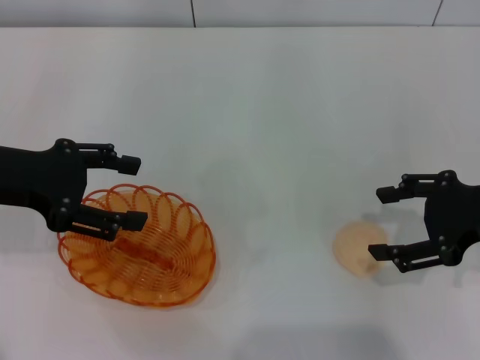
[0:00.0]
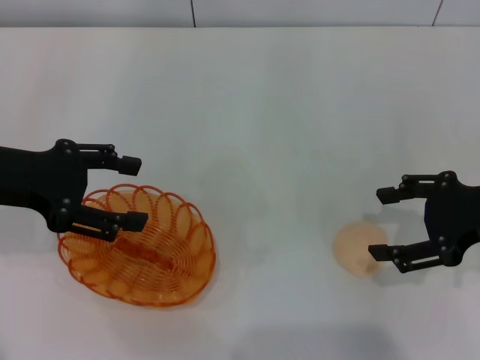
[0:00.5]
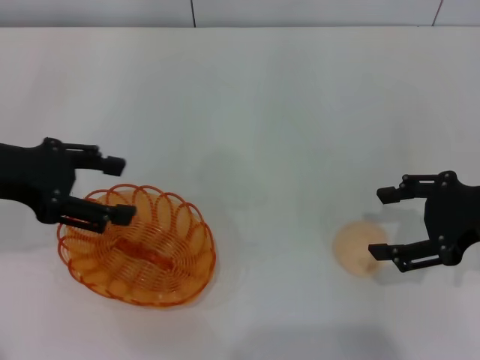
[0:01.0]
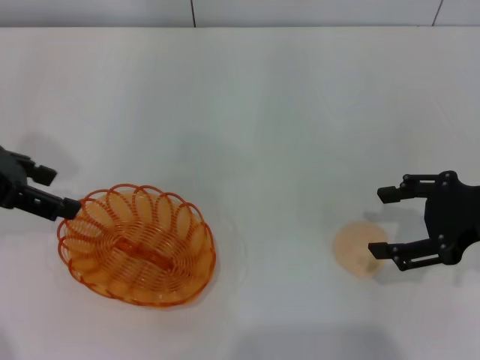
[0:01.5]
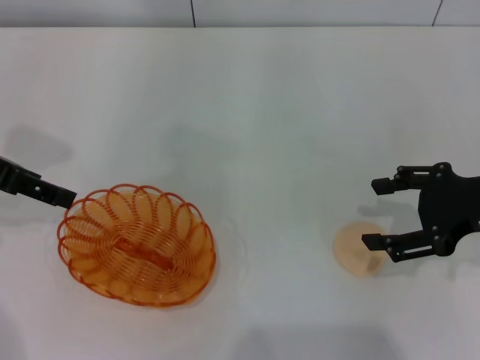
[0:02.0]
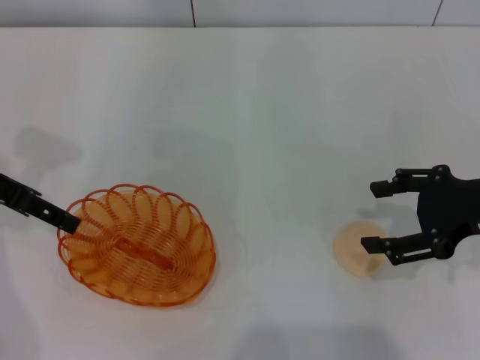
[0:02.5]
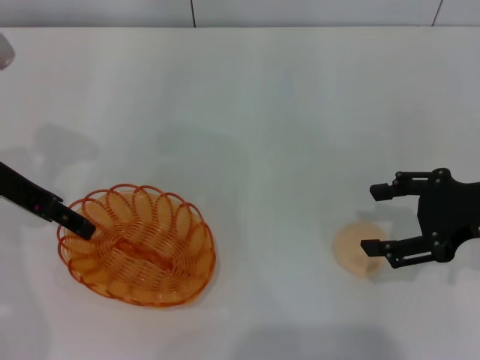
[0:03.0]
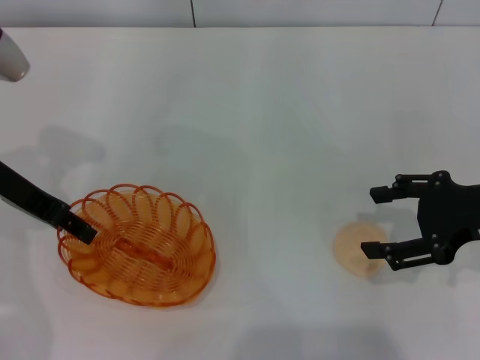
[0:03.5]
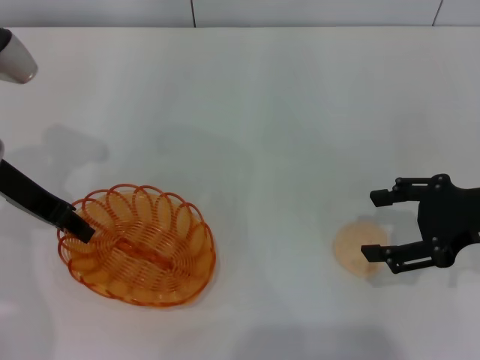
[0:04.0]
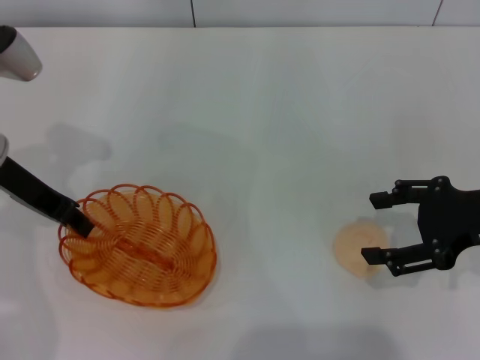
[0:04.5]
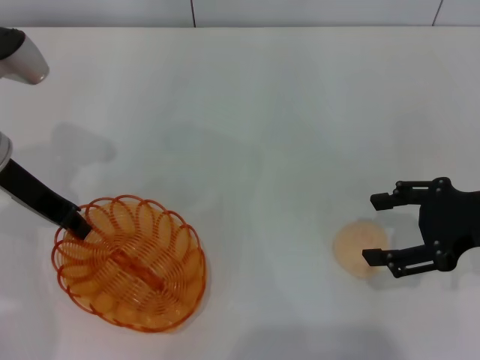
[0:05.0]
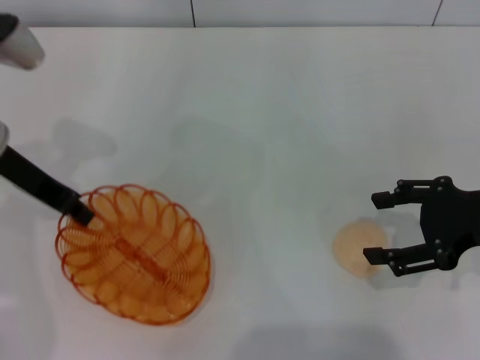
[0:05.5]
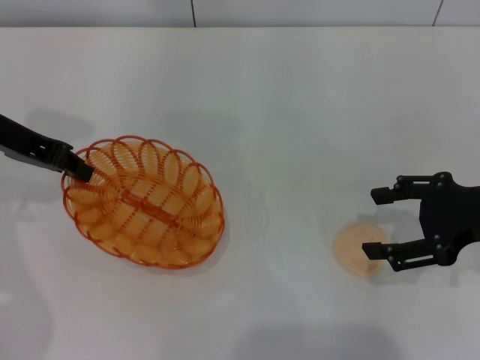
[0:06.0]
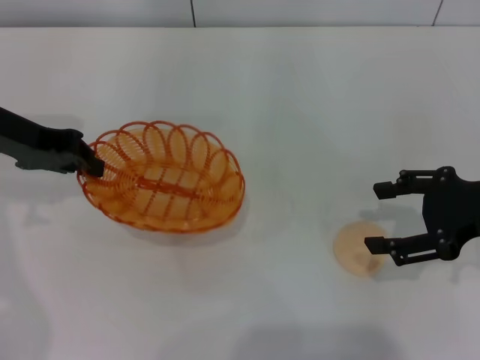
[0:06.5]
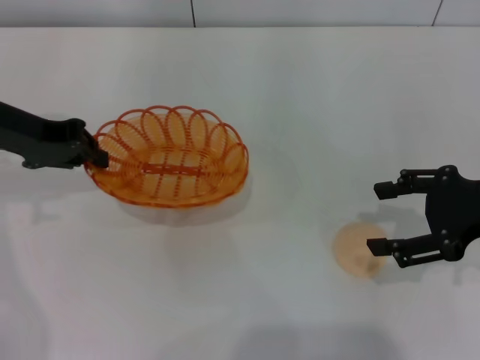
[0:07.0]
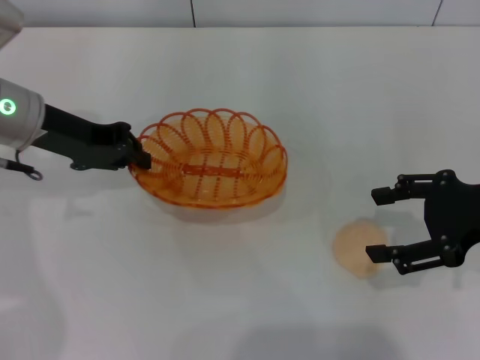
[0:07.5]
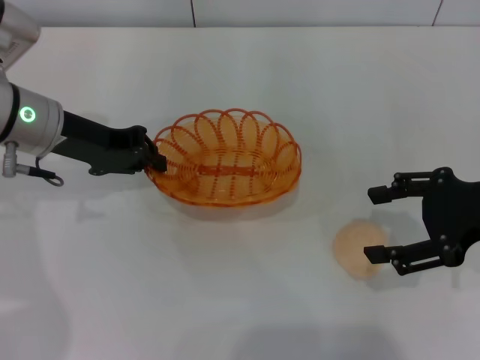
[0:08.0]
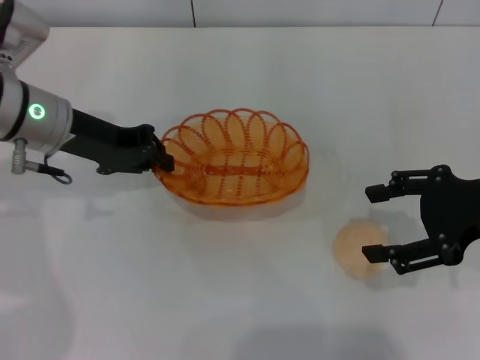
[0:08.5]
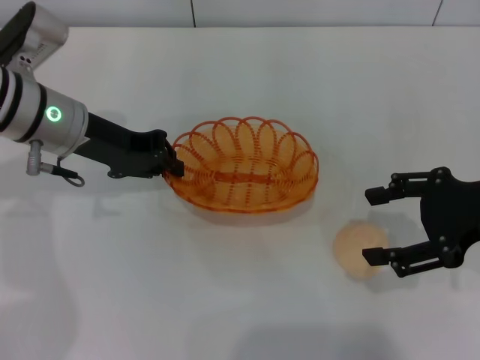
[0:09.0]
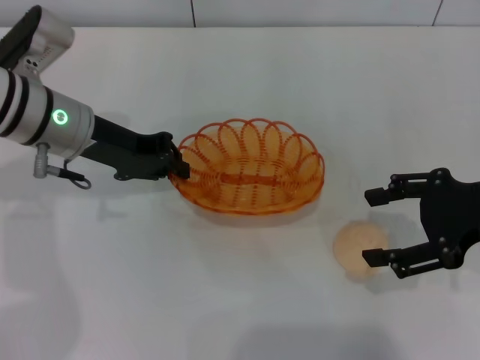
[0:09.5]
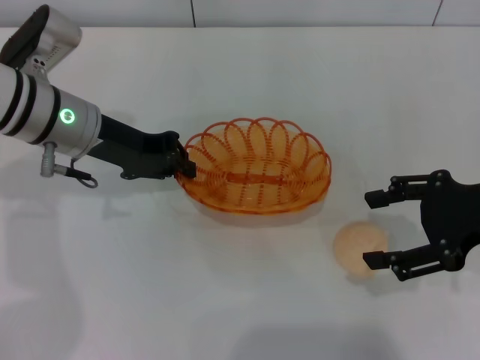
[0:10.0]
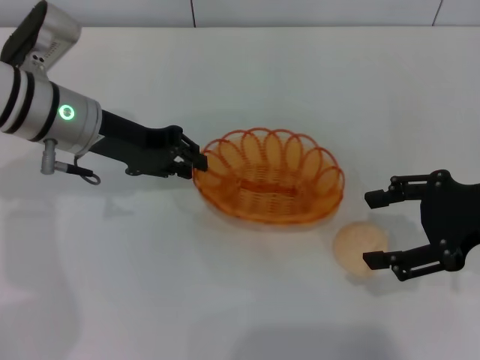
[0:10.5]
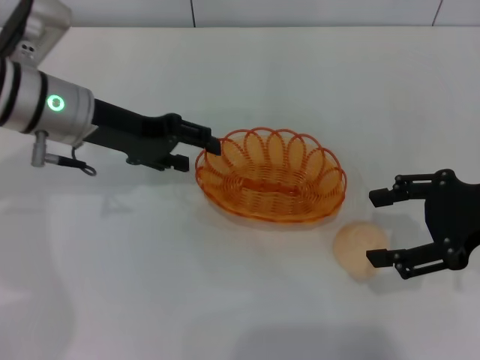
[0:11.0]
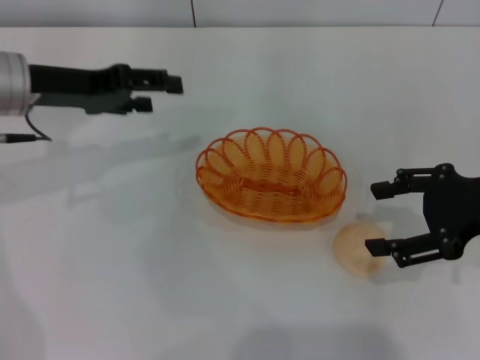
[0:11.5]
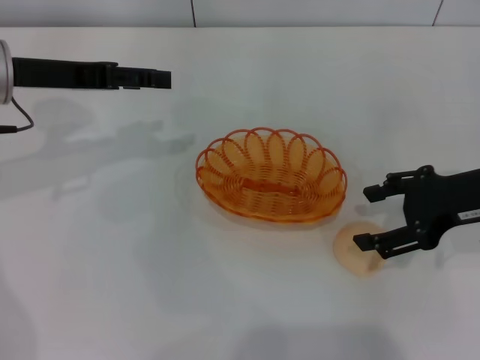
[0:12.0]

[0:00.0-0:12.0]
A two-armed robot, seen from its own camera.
Step, 0:00.0 to 0:06.5: Pick up the basket with the left gripper.
Step, 0:07.0 to 0:11.0: Place the basket in the center of view with the left gripper.
0:02.0 to 0:04.0: The left gripper heads downward, covering approximately 5 cm, and closes up.
0:04.0 to 0:06.0: The grippers stay close to where they were, moving slightly.
0:06.0 to 0:08.0: The left gripper shifts by some 5 cm.
0:08.0 to 0:10.0: The grippers move only a little.
0:10.0 to 0:12.0: The left gripper heads to the left, covering approximately 5 cm, and opens.

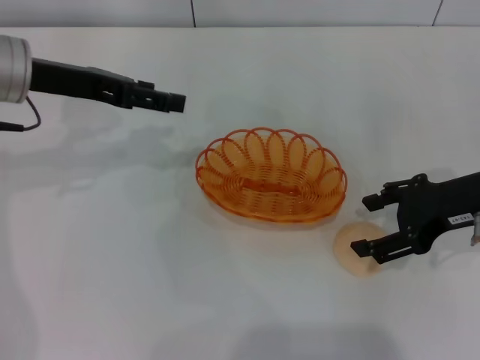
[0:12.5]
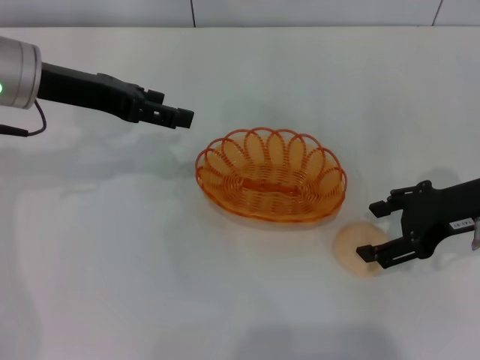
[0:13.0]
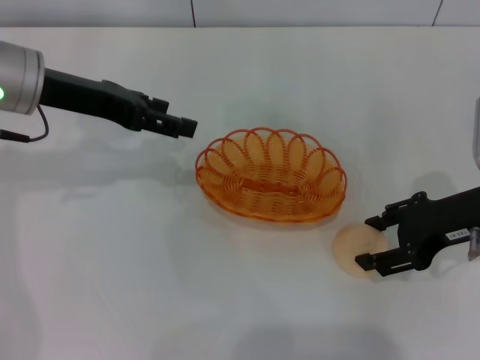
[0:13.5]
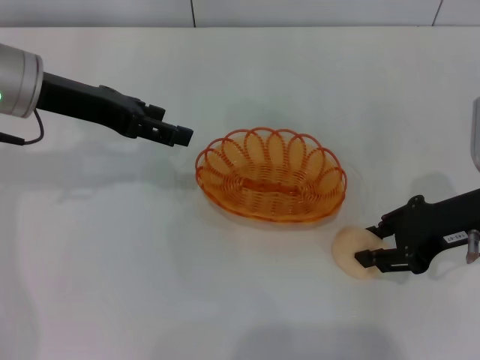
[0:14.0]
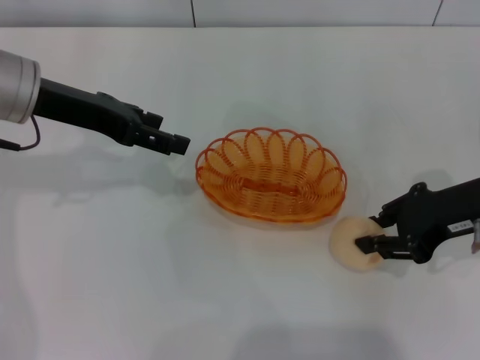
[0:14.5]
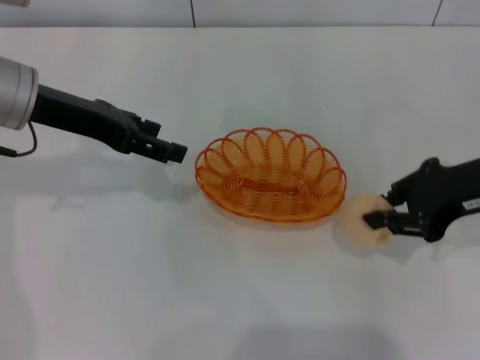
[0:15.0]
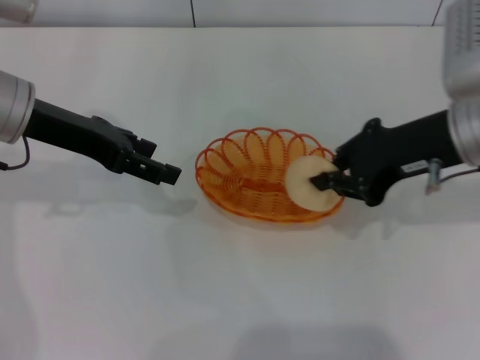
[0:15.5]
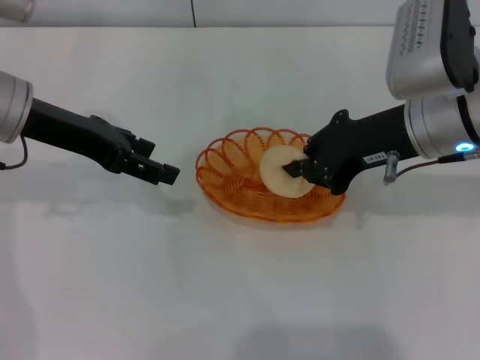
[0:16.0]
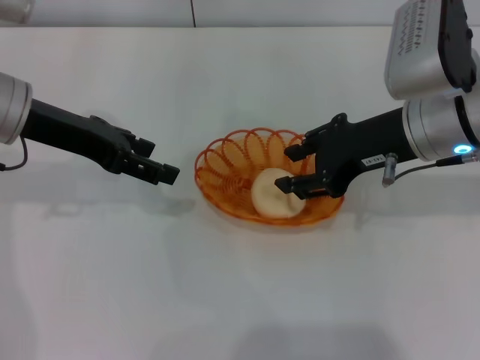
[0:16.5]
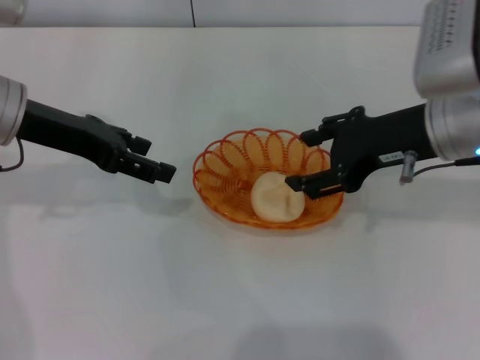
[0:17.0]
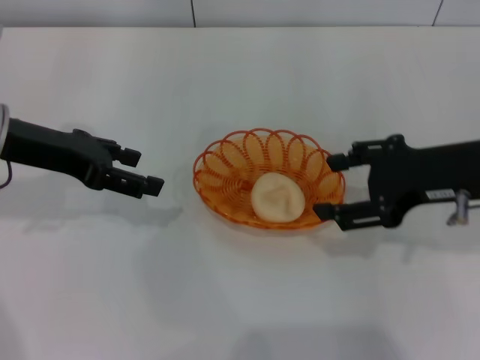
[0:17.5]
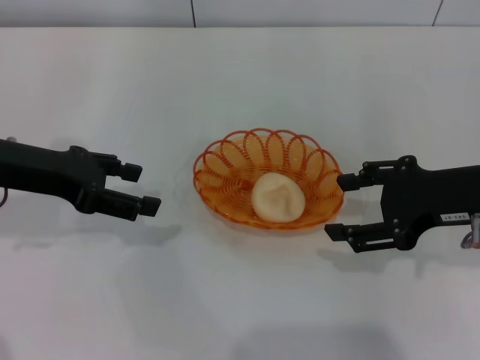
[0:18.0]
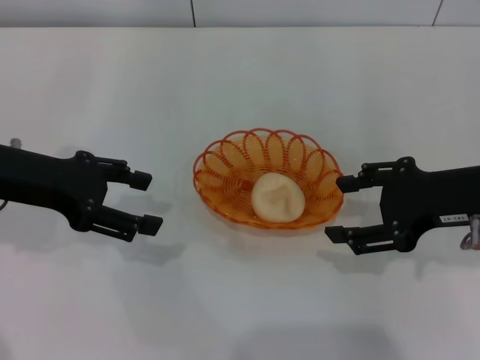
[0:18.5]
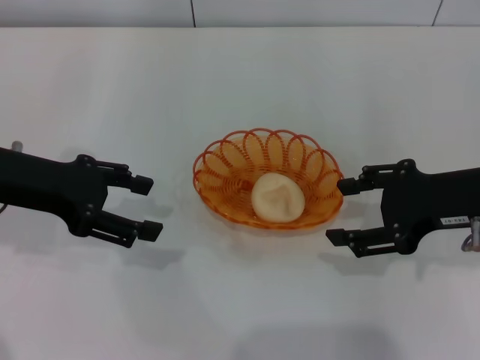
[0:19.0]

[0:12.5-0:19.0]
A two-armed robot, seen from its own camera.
Step, 0:12.5 to 0:15.0: Pick up the egg yolk pastry with the right gripper.
Step, 0:15.5 to 0:17.0: Place the egg yolk pastry into the basket with the right gripper.
0:12.5 to 0:14.5: The right gripper closes up.
0:14.5 to 0:17.0: The right gripper is displaced to the left by approximately 5 cm, and opens its fingers.
0:17.0 to 0:19.0: The right gripper goes approximately 5 cm to the right. The left gripper changes place by about 5 cm.
